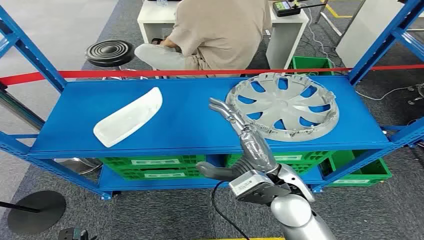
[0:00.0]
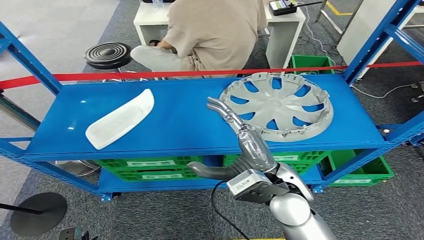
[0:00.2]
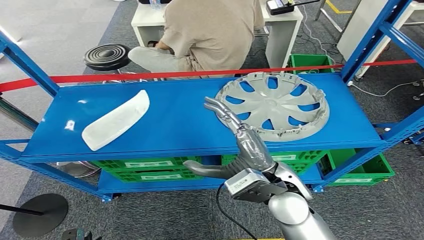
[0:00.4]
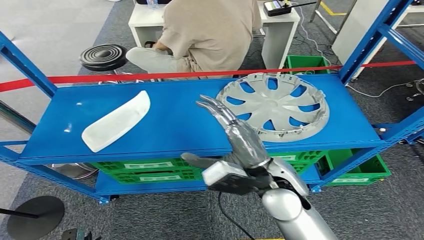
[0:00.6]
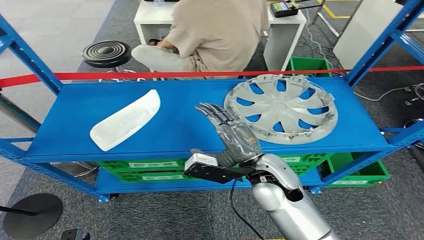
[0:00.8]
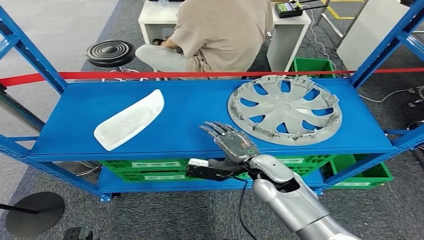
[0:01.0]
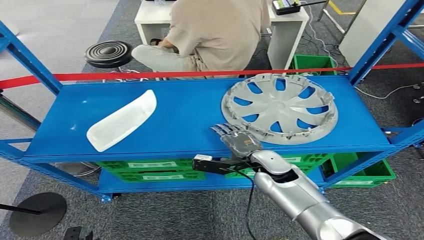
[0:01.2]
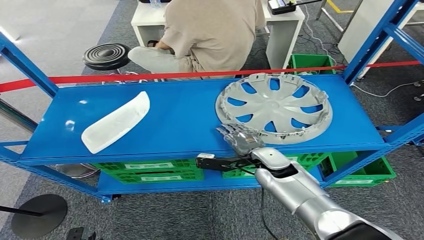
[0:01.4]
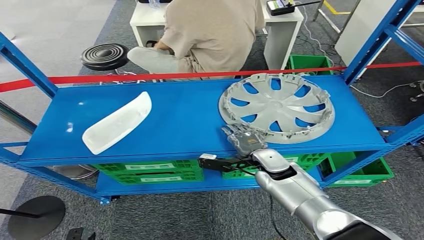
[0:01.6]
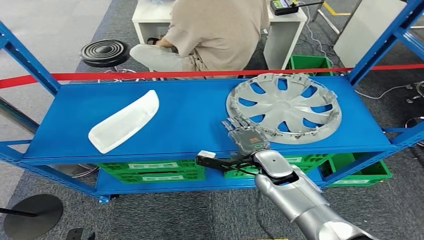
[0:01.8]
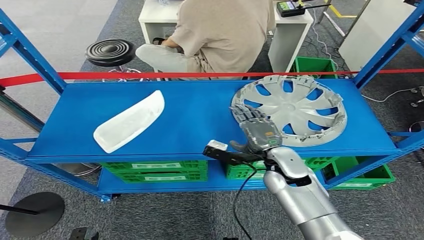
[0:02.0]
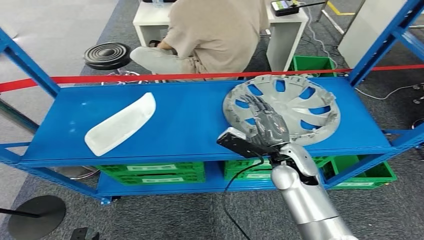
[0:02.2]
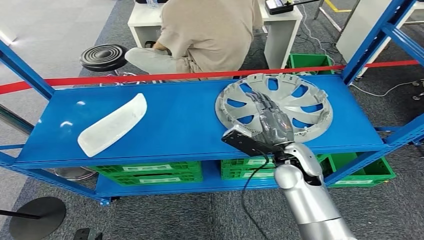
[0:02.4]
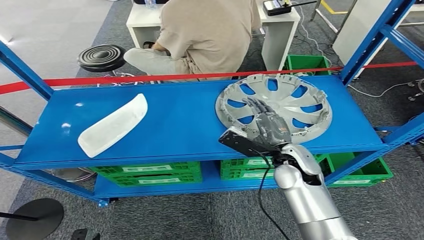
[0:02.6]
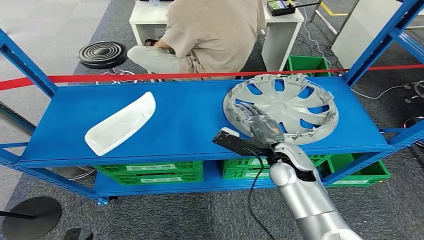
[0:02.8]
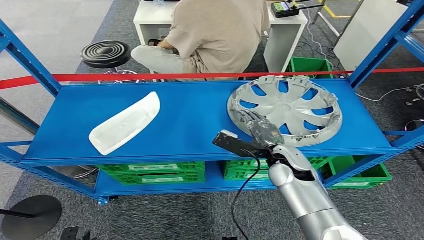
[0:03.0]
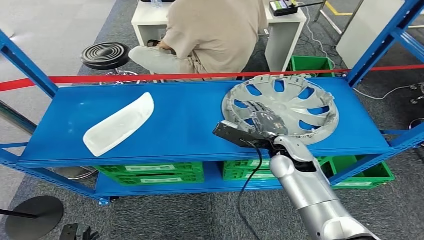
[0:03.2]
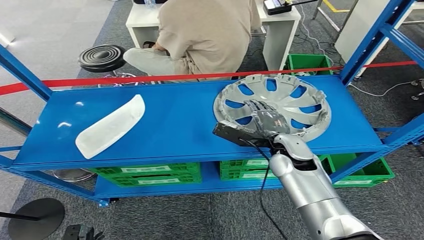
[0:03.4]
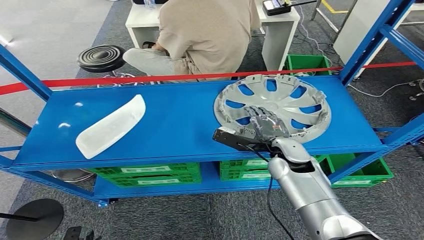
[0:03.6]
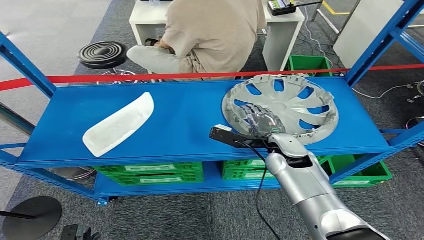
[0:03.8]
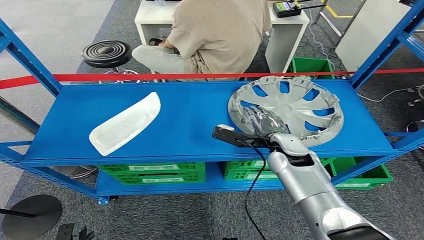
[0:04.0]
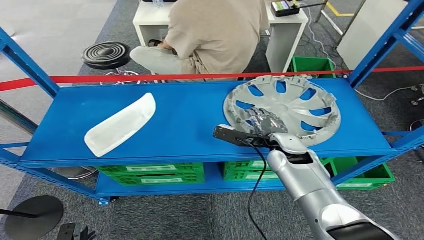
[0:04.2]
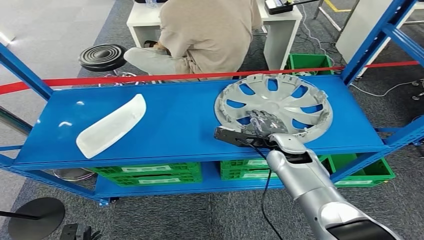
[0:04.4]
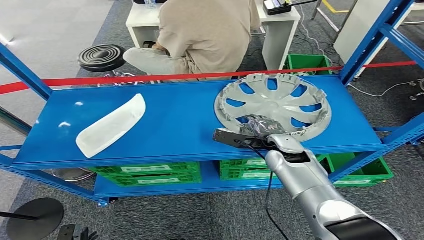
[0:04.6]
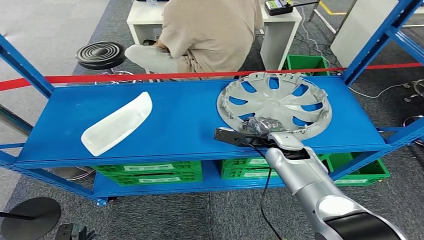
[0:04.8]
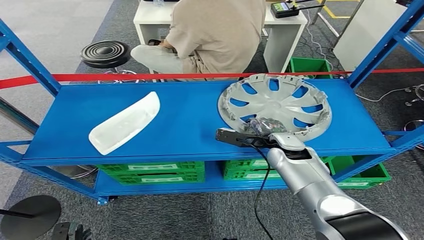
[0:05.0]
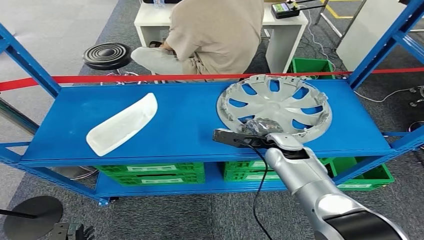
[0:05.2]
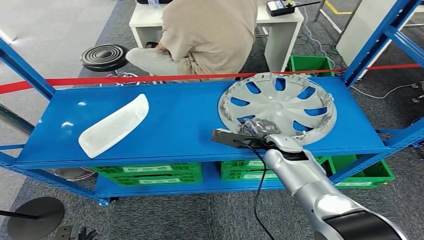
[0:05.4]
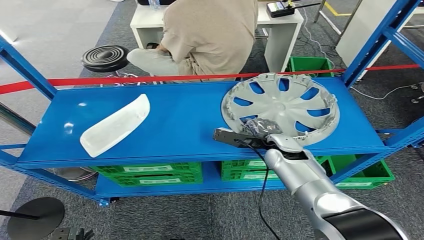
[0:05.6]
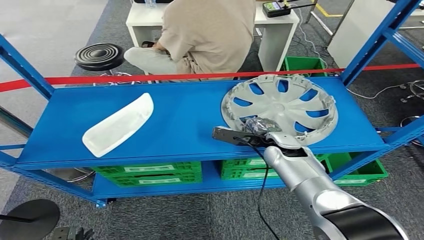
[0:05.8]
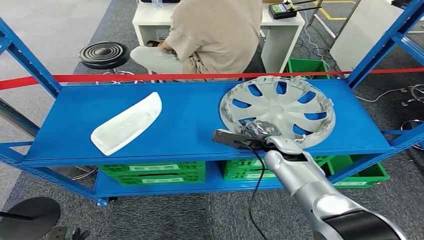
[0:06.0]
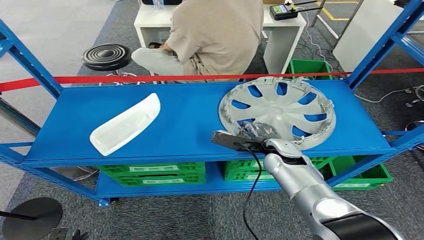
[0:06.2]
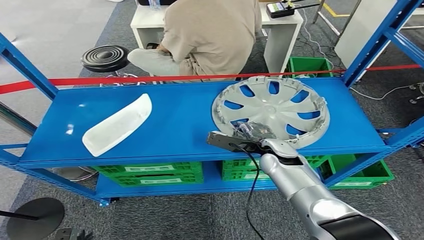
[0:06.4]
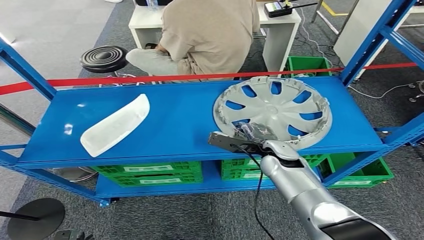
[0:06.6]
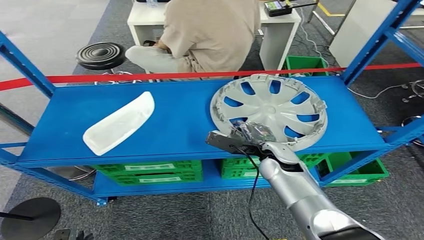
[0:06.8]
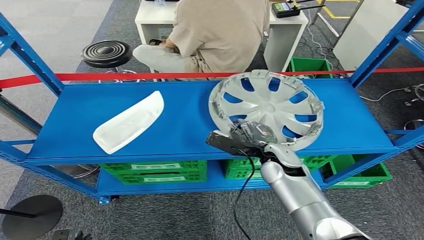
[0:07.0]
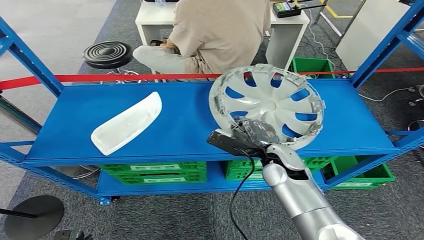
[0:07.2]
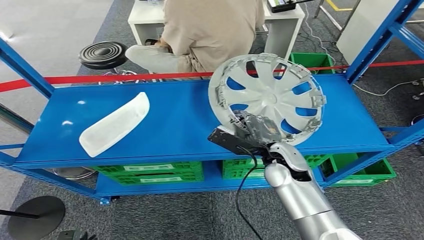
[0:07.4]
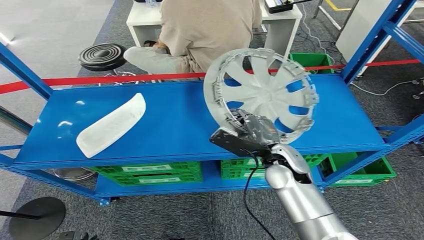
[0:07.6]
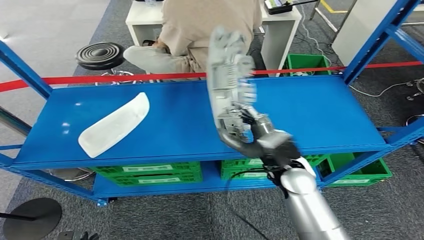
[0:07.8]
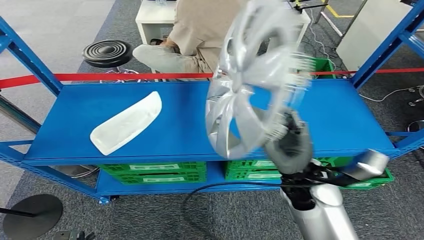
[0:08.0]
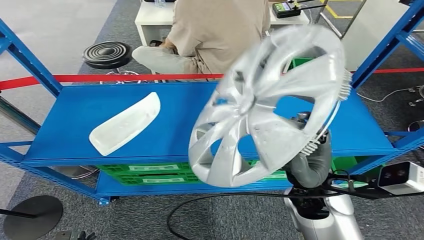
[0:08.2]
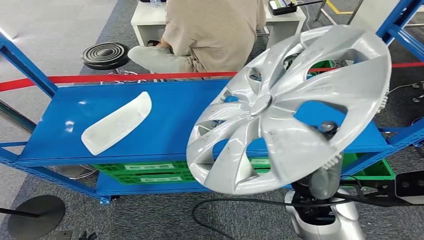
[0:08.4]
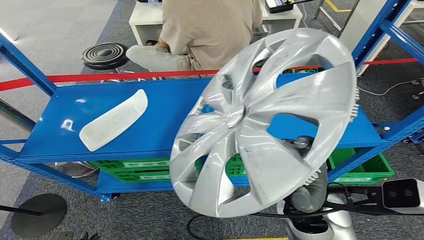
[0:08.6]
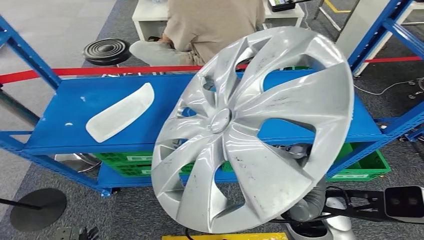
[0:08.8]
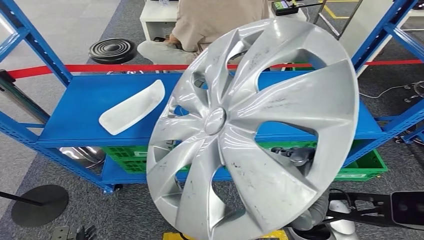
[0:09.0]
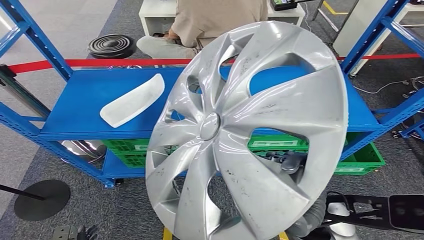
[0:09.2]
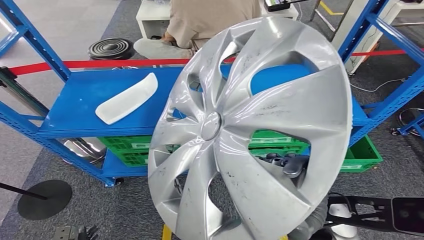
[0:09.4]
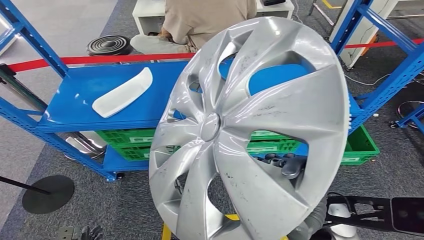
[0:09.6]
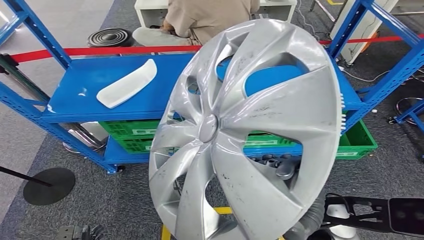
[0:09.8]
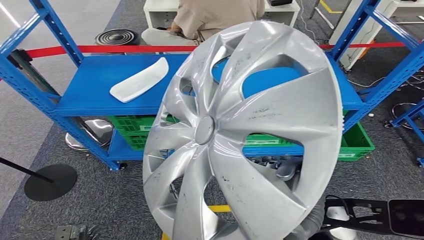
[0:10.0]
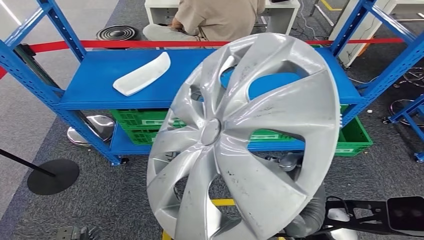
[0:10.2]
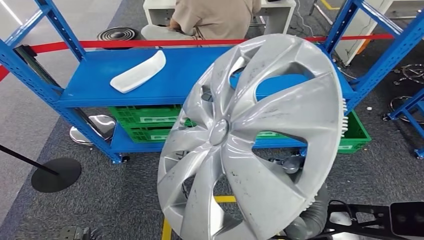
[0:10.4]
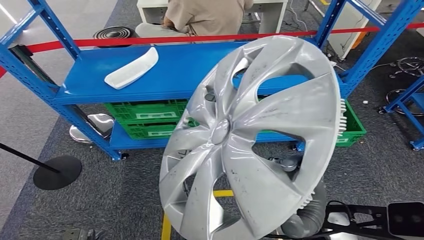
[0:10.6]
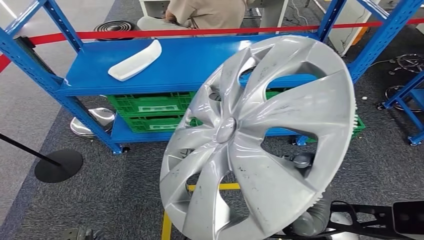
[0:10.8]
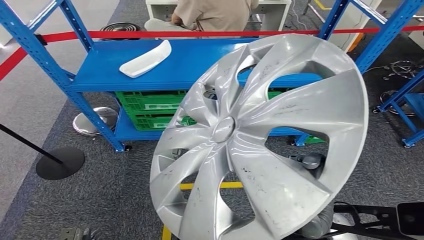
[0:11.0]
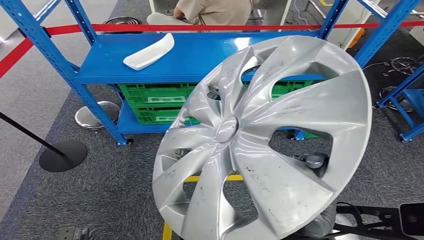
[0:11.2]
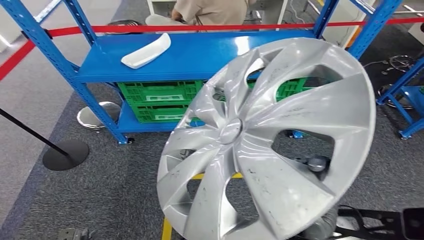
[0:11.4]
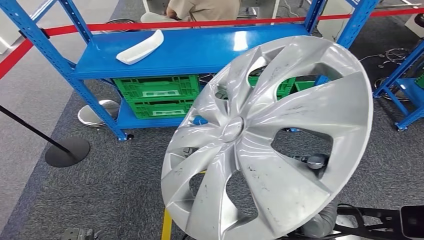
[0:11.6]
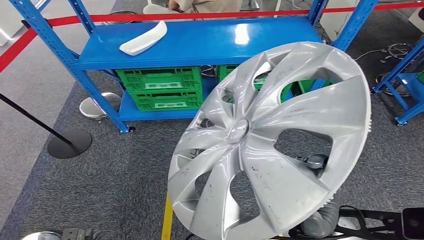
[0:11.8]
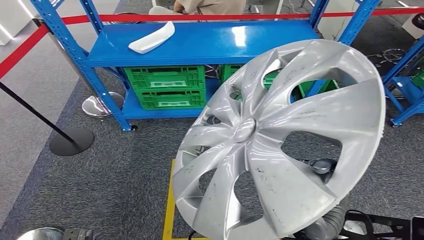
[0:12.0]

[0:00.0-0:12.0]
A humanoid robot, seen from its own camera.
Step, 0:00.0 to 0:07.0: Pick up the small component from the shelf.

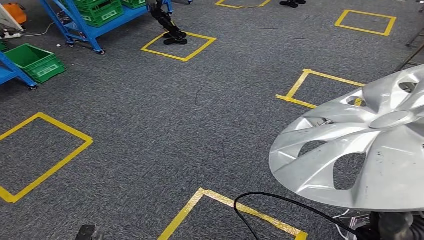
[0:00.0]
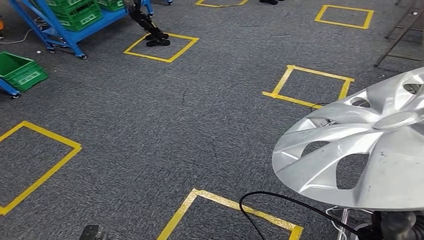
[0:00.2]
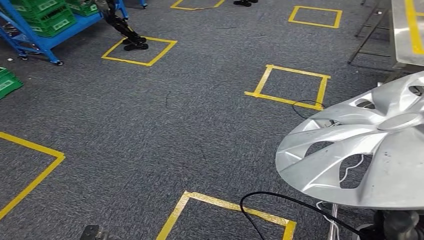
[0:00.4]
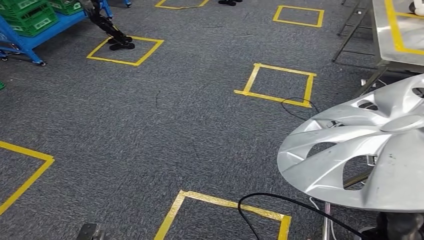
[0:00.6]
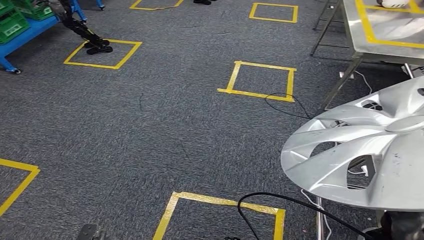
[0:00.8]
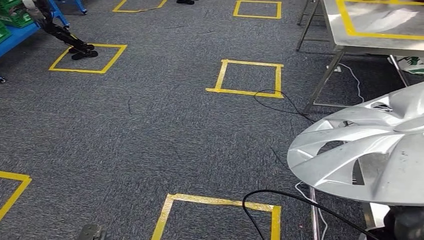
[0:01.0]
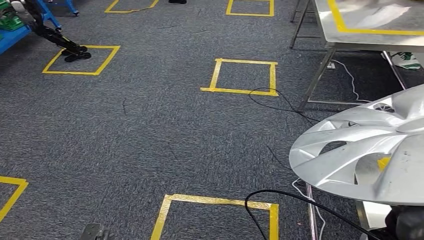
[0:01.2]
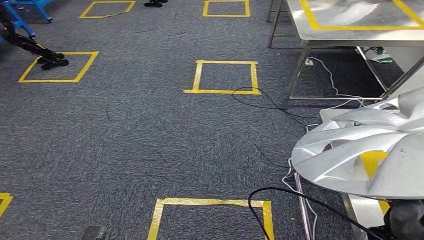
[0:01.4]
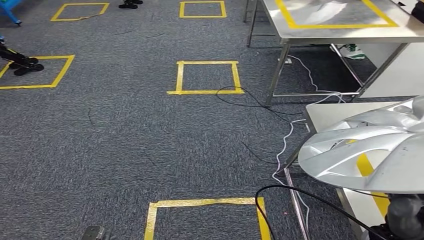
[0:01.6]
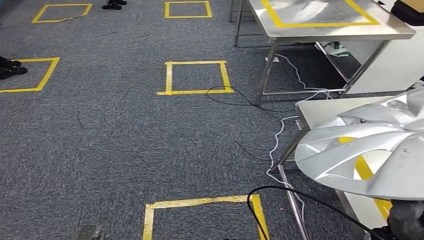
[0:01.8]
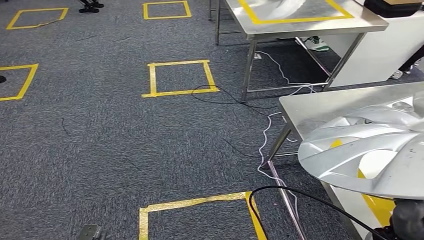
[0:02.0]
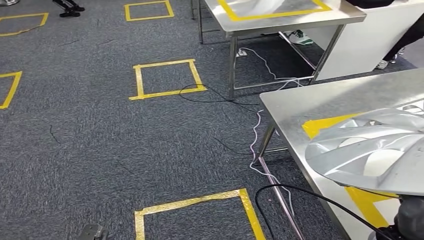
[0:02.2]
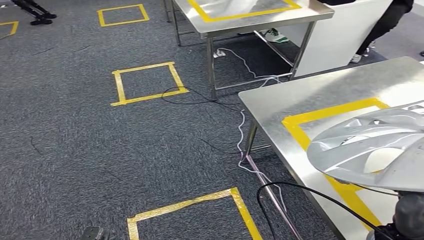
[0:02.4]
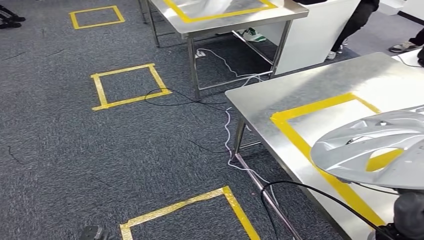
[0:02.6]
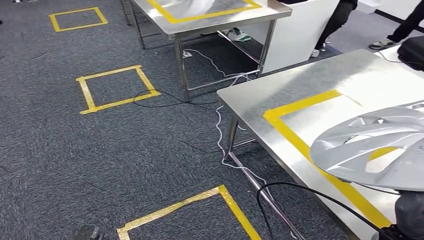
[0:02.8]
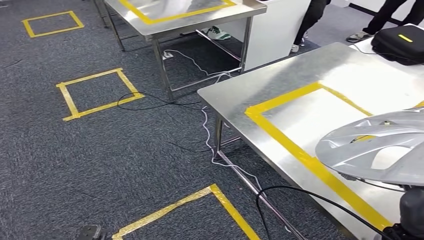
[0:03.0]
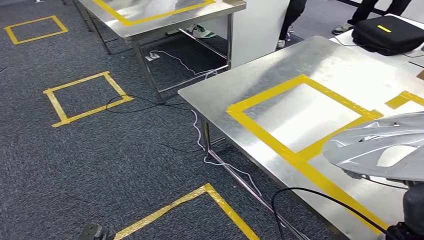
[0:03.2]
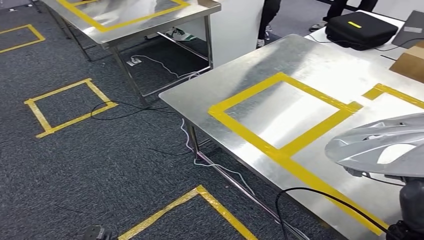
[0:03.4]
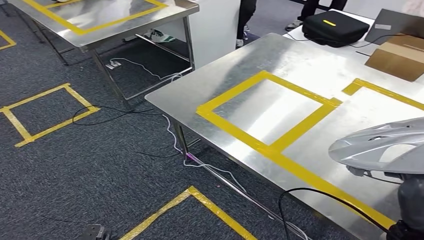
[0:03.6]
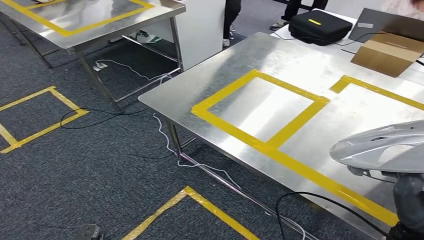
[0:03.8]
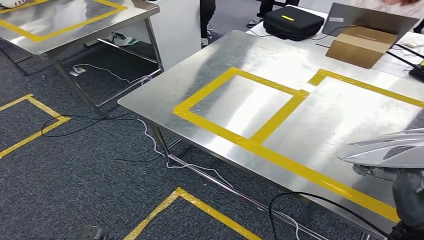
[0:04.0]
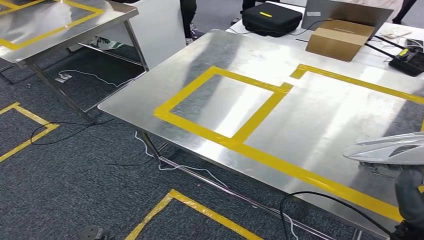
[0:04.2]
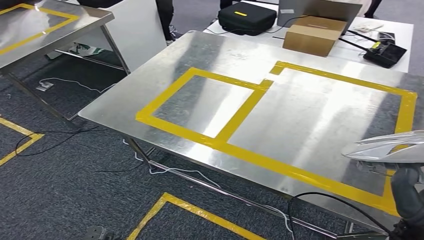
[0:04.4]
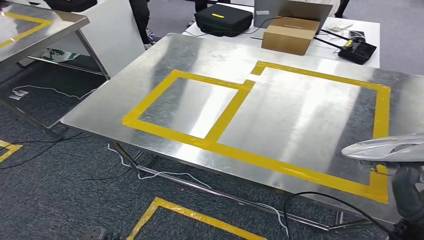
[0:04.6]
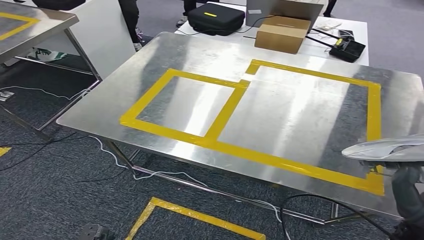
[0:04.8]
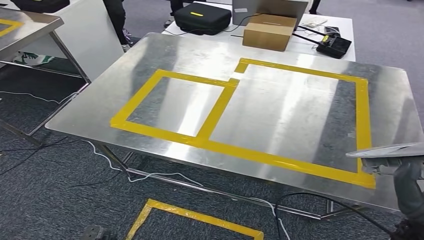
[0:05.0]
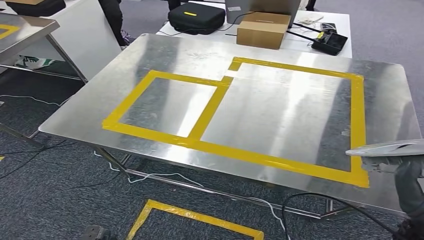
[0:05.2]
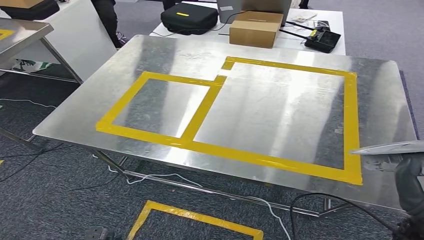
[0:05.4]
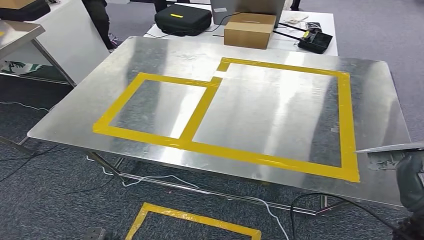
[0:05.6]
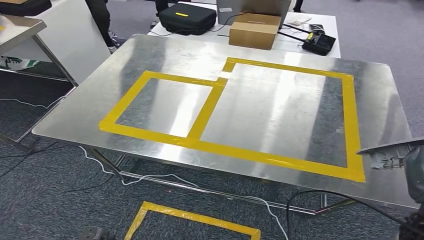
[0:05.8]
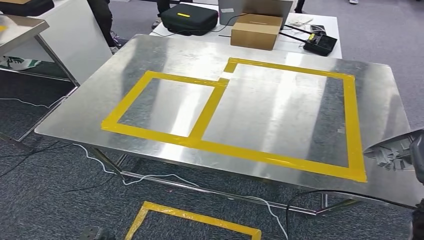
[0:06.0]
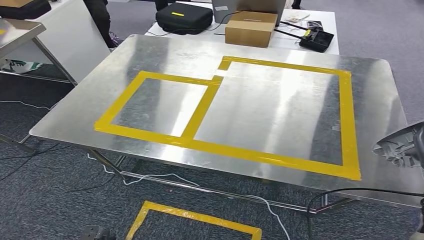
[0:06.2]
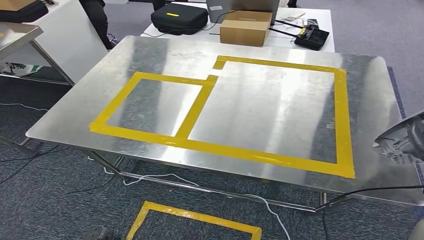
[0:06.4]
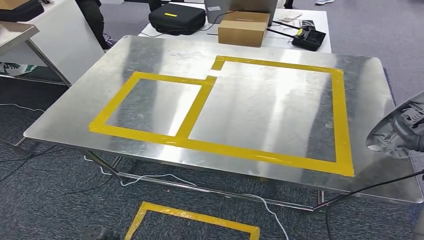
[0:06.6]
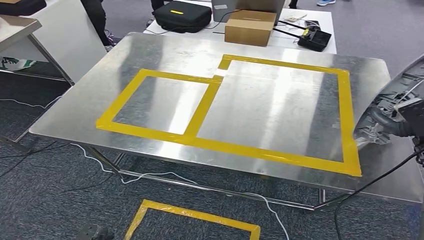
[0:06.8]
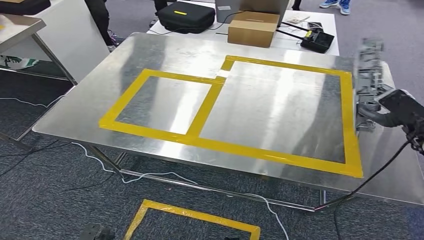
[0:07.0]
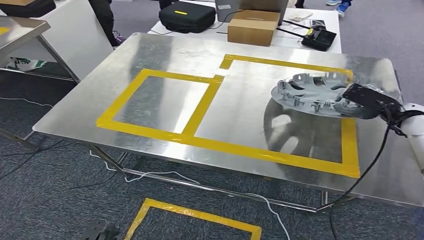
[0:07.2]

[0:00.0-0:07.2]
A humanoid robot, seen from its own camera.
Step, 0:00.0 to 0:05.2: Move the small component to the workbench.
